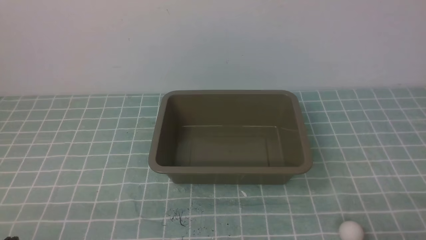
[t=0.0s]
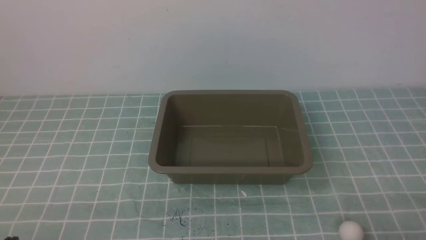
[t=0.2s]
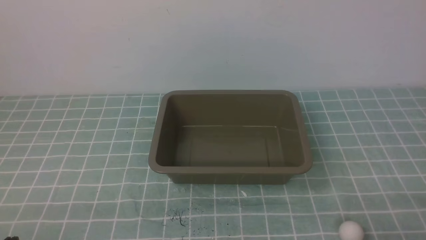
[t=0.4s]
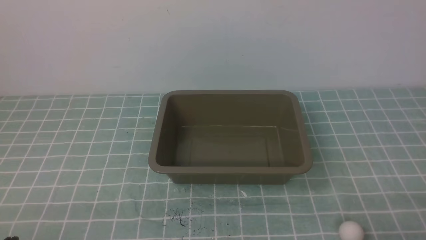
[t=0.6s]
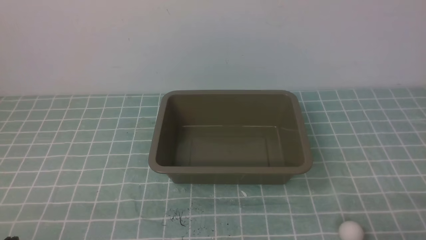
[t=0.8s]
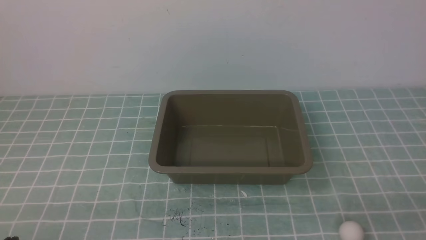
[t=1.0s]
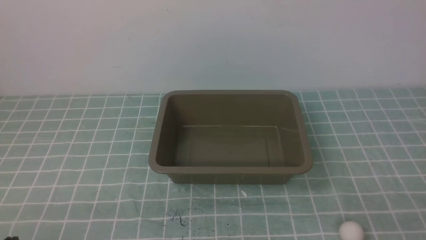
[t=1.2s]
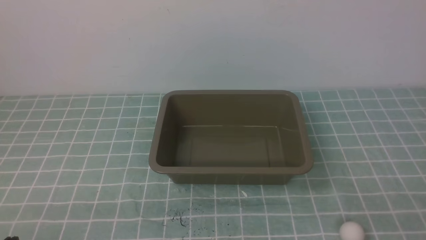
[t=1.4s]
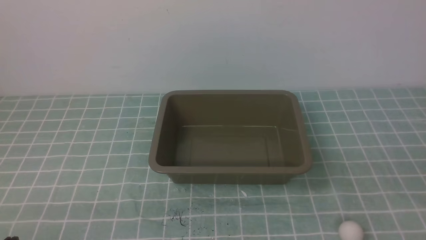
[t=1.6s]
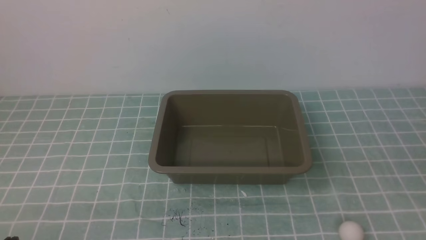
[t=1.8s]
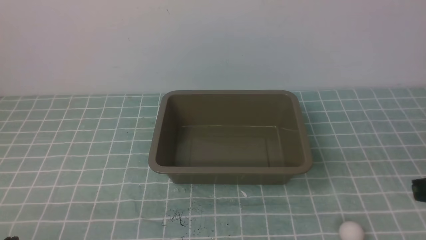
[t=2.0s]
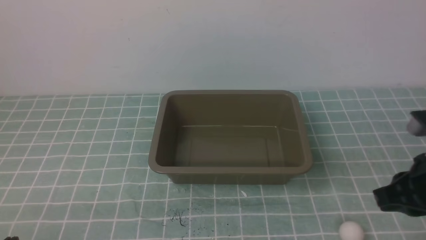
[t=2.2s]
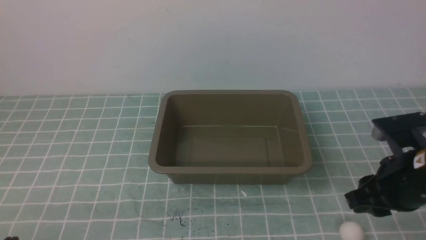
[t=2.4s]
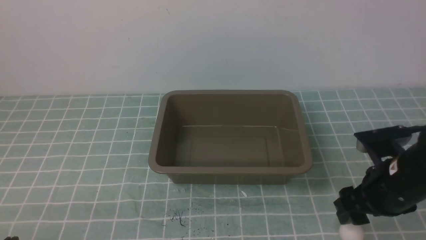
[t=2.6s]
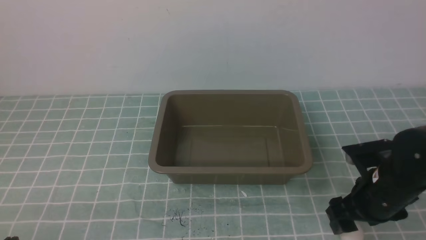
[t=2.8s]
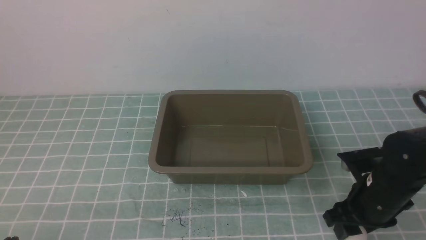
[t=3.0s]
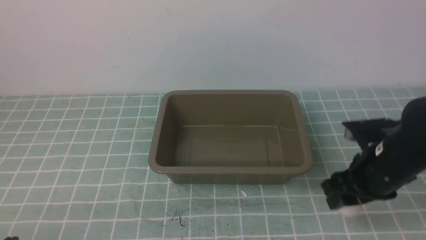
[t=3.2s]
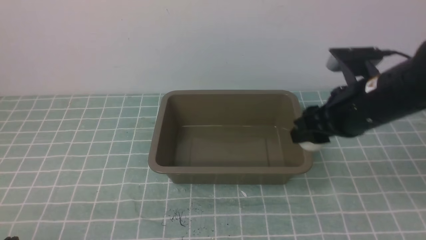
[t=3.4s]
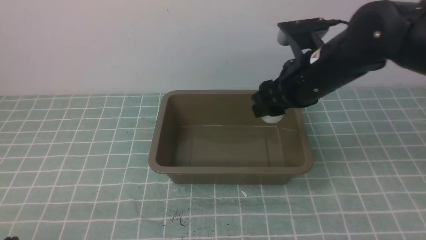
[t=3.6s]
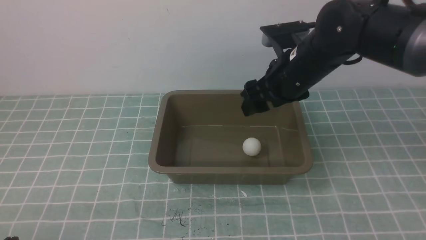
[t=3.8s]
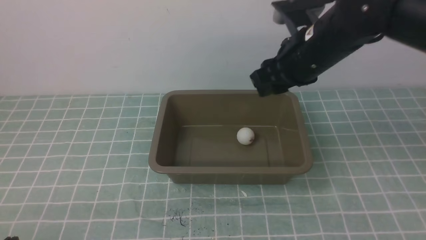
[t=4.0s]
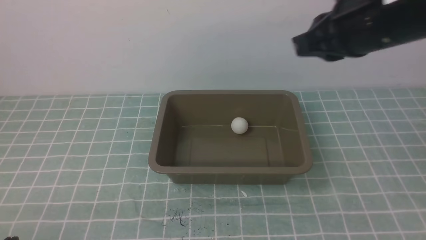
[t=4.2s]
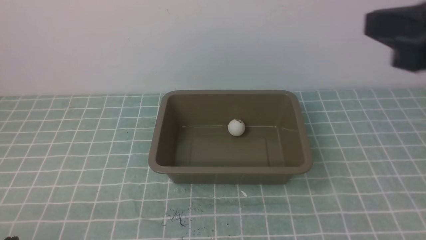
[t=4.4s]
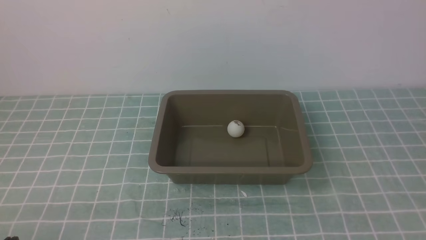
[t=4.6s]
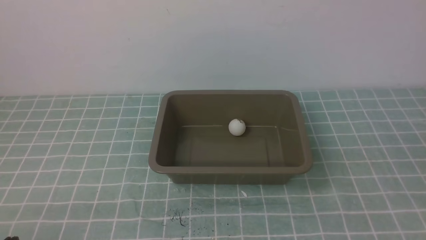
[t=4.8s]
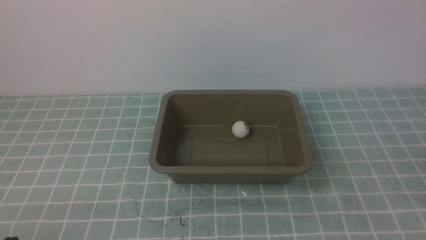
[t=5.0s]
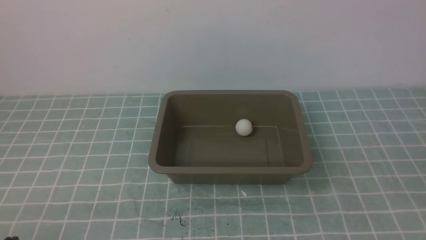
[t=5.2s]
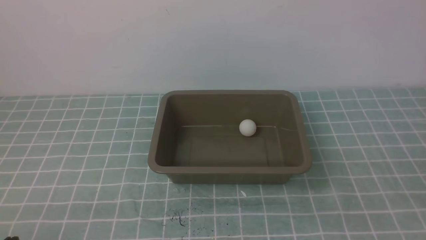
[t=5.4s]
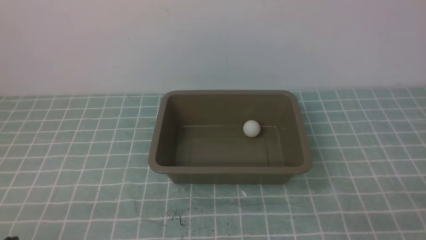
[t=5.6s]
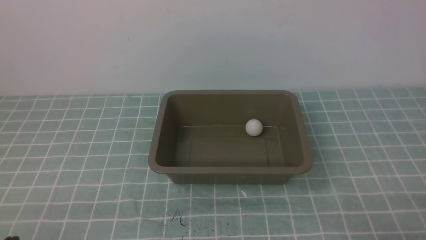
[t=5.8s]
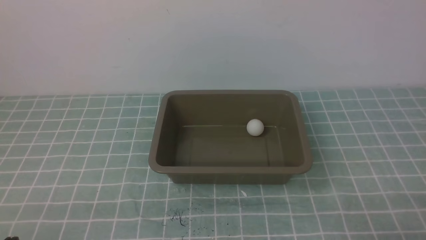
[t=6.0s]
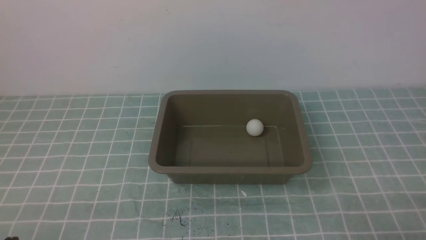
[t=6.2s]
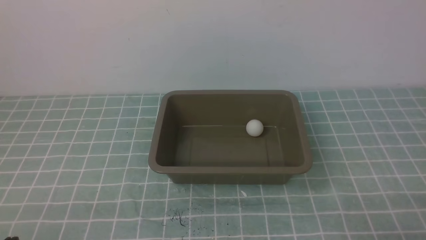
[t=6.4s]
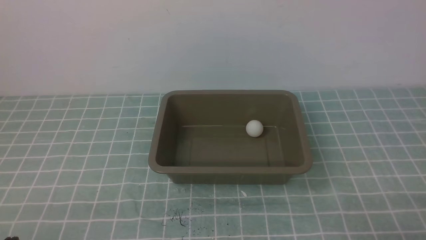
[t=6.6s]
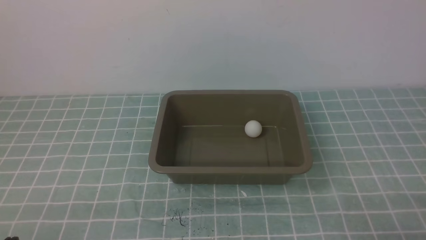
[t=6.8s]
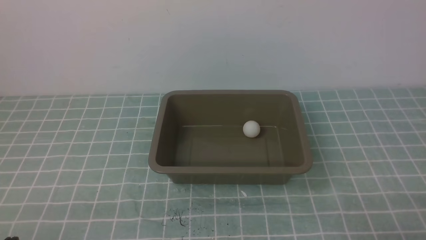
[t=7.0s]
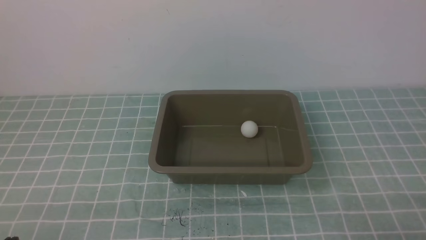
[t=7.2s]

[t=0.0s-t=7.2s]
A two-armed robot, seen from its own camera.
Step, t=0.0s to t=3.0s: use the right arm to clamp the table tennis ball closest to it.
Step, t=3.4s to t=4.0s: use the right arm to put the table tennis ball into the box.
t=1.4s to t=2.8s: The right gripper is displaced forward by roughly 20 cm, and opens its fingers.
t=2.8s to t=4.4s: The right gripper shifts approximately 25 cm upward, and closes up.
t=4.4s to t=5.8s: The right gripper heads downward and backward, covering approximately 25 cm.
t=5.8s to t=7.2s: Both grippers stay put.

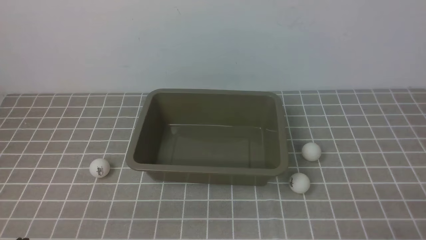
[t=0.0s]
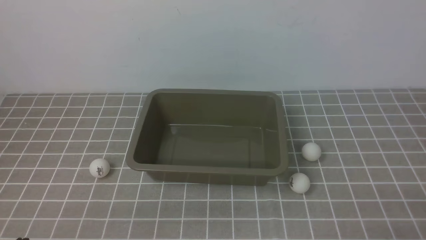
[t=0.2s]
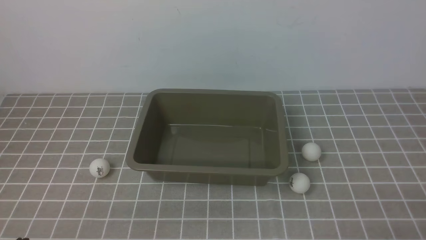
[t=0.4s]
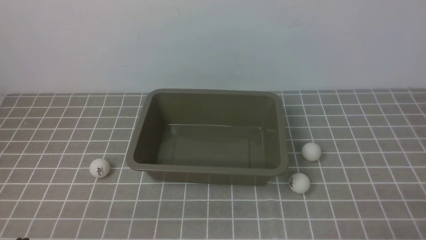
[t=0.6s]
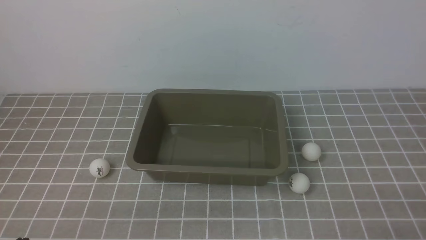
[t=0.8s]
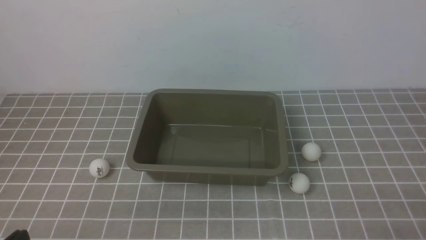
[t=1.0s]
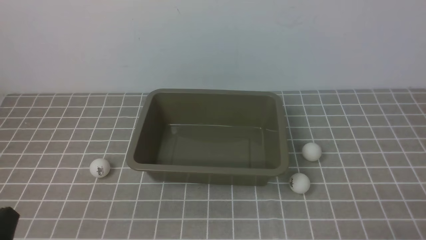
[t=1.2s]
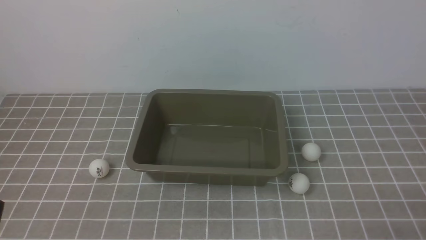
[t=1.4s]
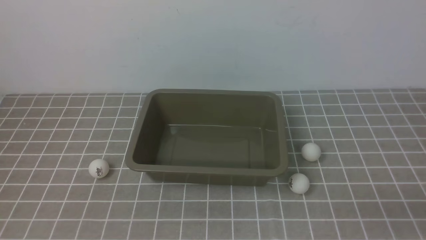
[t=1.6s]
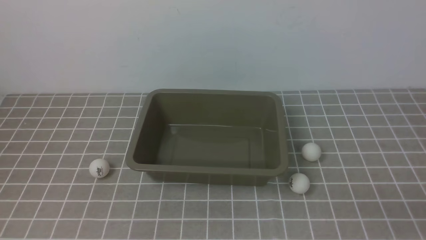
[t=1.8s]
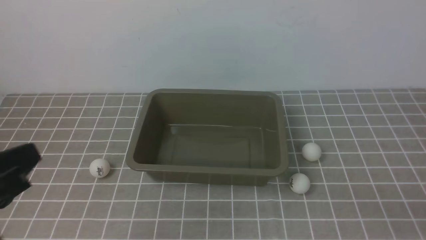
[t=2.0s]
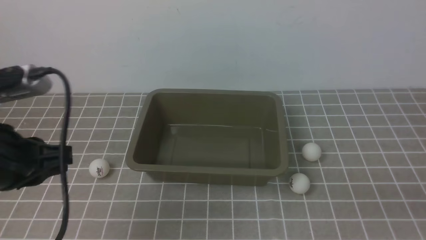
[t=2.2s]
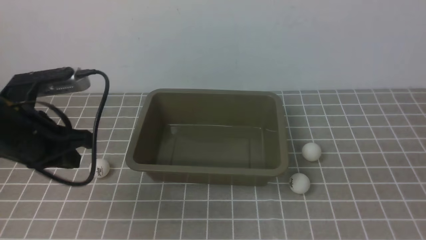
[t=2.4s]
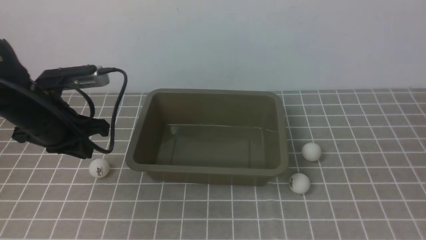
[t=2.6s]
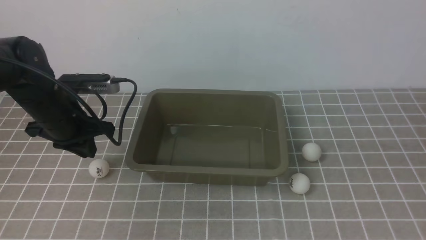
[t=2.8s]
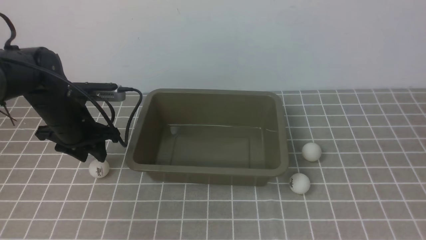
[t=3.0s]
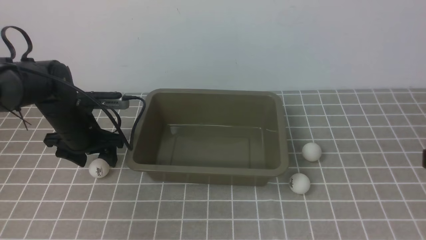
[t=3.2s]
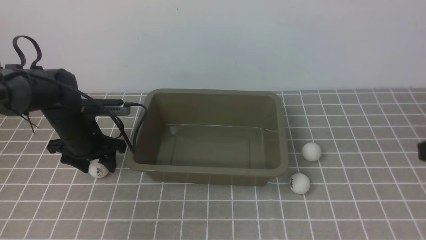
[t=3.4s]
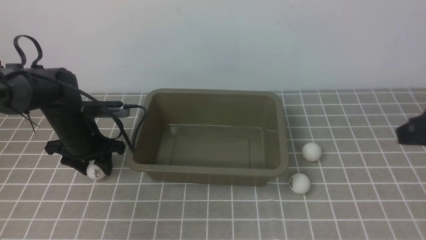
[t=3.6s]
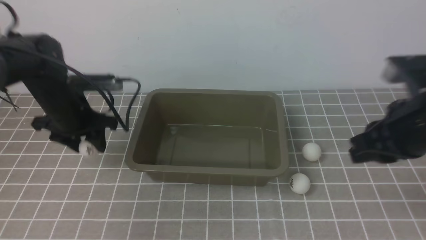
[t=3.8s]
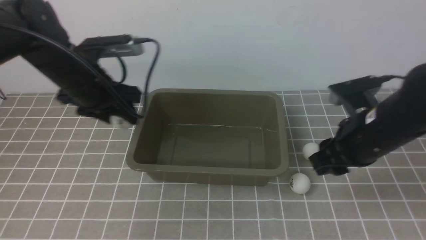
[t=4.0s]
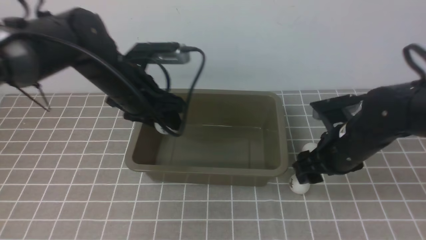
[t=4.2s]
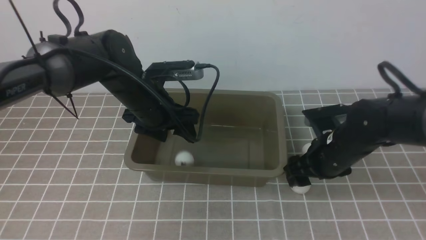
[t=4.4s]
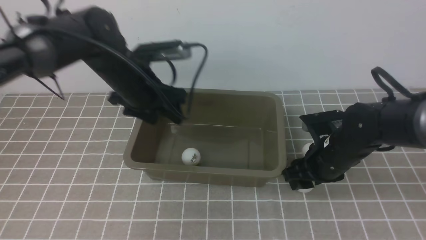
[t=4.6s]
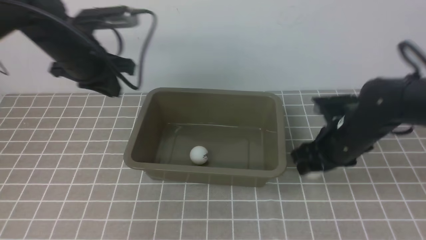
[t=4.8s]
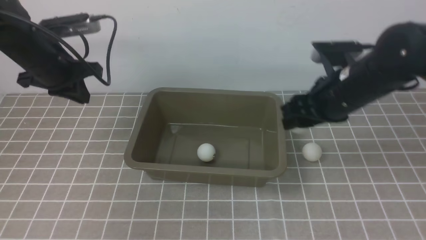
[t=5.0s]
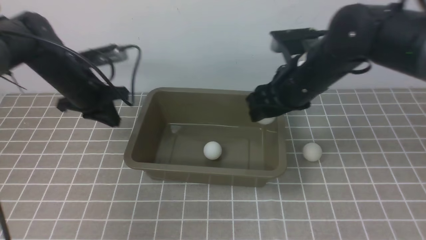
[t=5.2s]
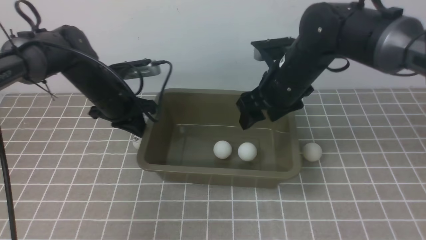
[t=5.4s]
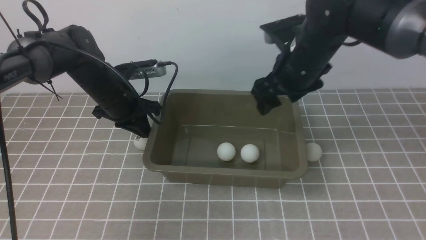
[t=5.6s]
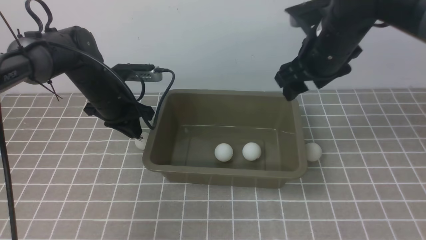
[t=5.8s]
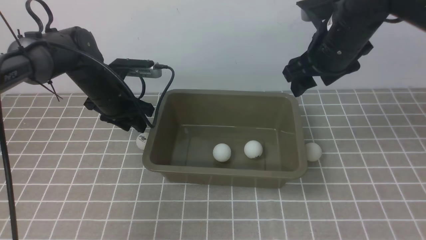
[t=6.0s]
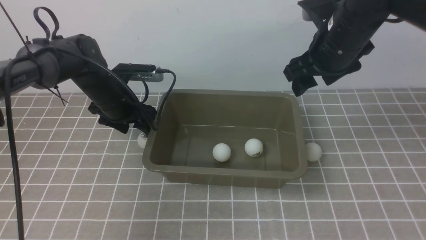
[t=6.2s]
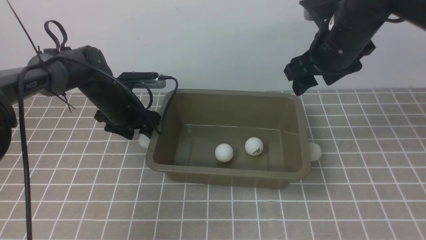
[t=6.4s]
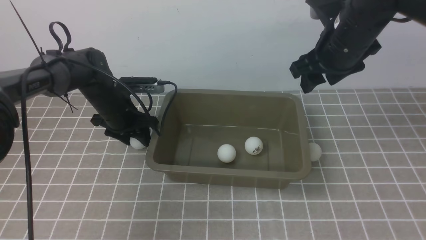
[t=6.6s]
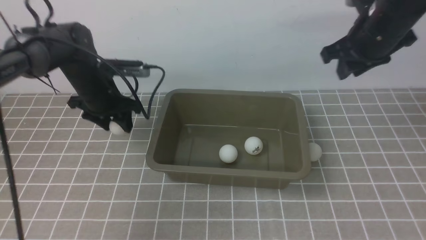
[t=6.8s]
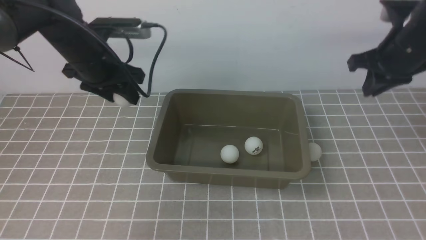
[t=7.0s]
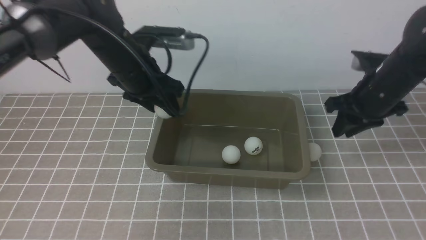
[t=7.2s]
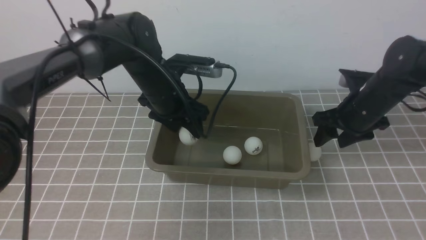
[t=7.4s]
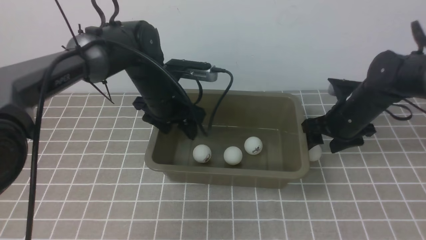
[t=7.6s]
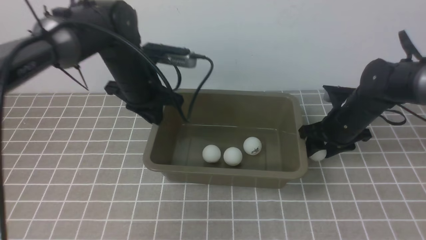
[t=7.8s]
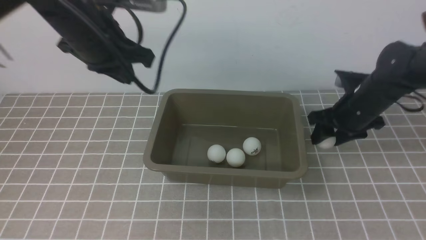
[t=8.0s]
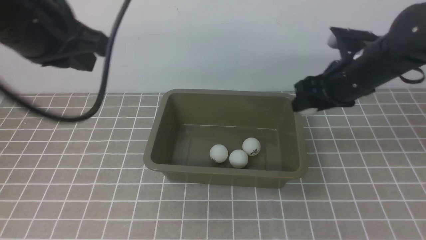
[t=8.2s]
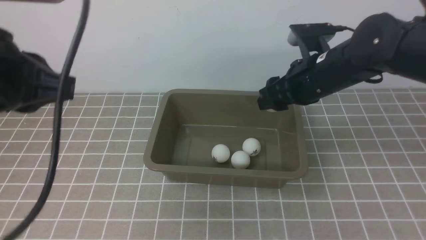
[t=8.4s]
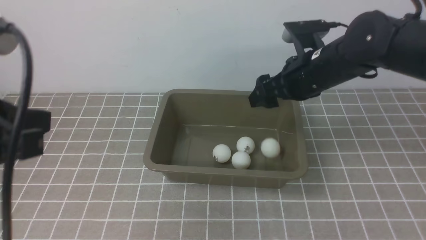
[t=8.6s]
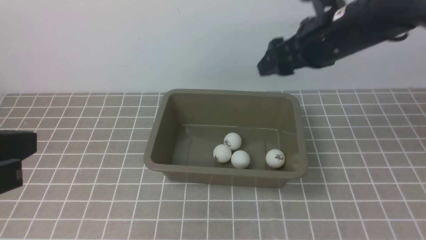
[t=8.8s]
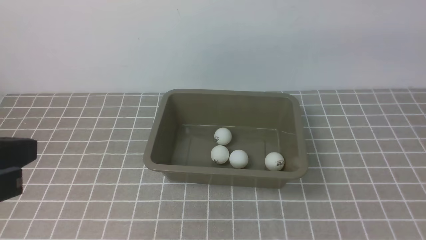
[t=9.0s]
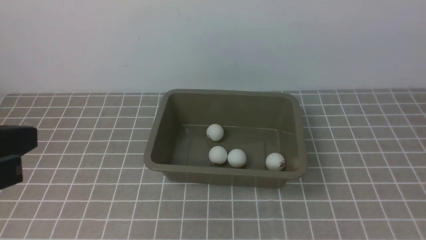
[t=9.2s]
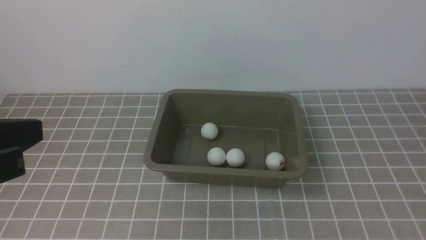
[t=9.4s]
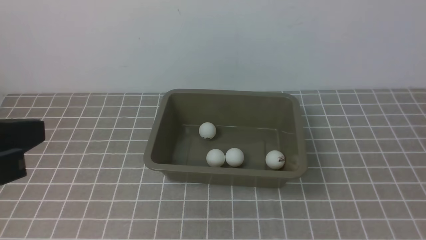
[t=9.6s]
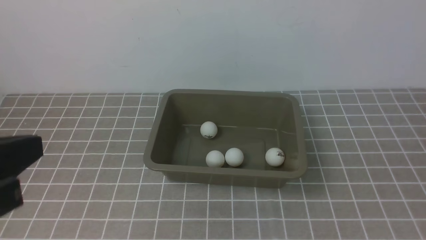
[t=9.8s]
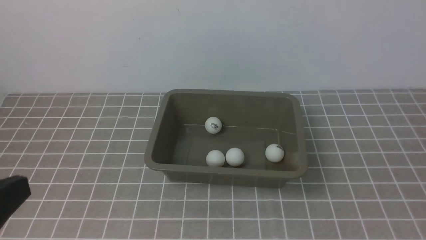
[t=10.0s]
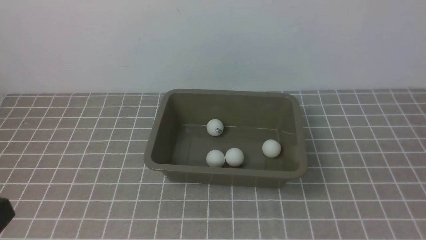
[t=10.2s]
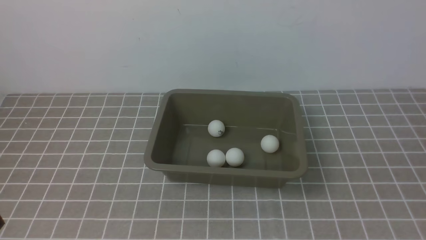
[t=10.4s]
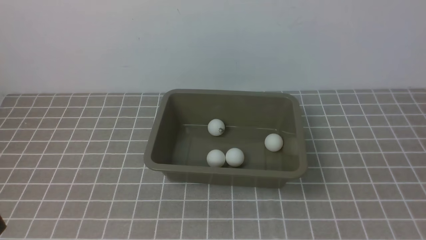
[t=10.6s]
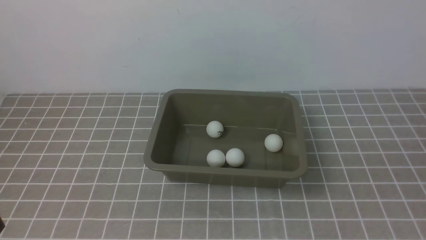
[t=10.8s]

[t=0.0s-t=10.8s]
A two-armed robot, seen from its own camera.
Step, t=0.0s to t=3.8s: use the left arm to clamp the table tennis ball closest to it.
Step, t=4.0s to t=4.2s: use the left arm to put the table tennis ball into the box.
Step, t=4.4s to t=4.8s: use the right arm to clamp the table tennis ball closest to it.
Step, t=5.0s to t=5.2s: use the right arm to put the table tennis ball into the box.
Step, t=5.6s to t=6.8s: use the left arm to clamp the table tennis ball closest to it.
Step, t=7.0s to t=7.6s: use the left arm to put the table tennis ball into the box.
Step, t=7.8s to t=8.0s: use the right arm to clamp the table tennis ball closest to it.
Step, t=8.4s to t=8.6s: use the right arm to put the table tennis ball into the box.
t=1.6s to t=3.0s: The right gripper heads upward, covering approximately 15 cm. The left gripper shifts about 30 cm forward, and opens up.
t=3.0s to t=4.6s: The left gripper shifts some 10 cm to the right and upward, while the right gripper moves forward, downward and to the left, approximately 30 cm, and opens up.
t=4.6s to t=6.2s: The left gripper is displaced downward and forward by some 10 cm, and closes, then reopens. The right gripper heads upward, covering approximately 15 cm.
t=6.2s to t=7.8s: The right gripper is displaced downward and to the right by approximately 15 cm, and closes and opens again. The left gripper travels upward, to the right and backward by approximately 15 cm, and closes up.
t=7.8s to t=9.2s: The right gripper heads upward and backward, covering approximately 40 cm, and closes. Meanwhile the left gripper travels backward by roughly 30 cm.
t=9.2s to t=10.8s: The left gripper goes some 10 cm backward and downward. Meanwhile the right gripper travels downward and backward by some 15 cm.
